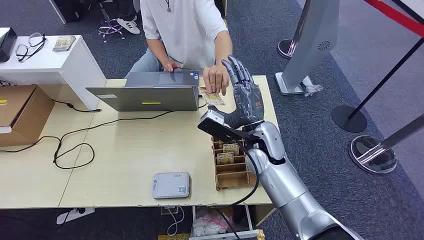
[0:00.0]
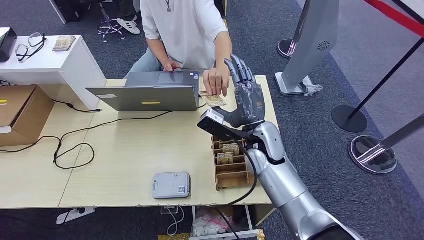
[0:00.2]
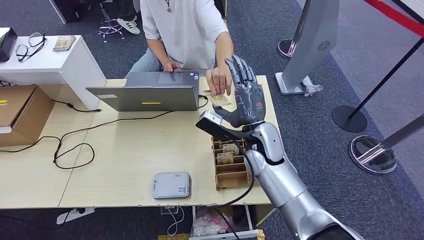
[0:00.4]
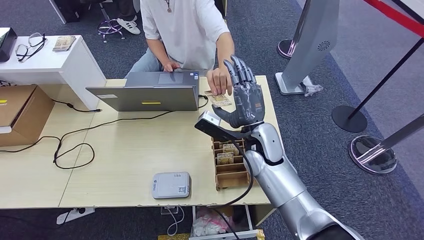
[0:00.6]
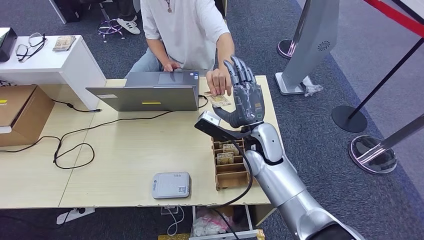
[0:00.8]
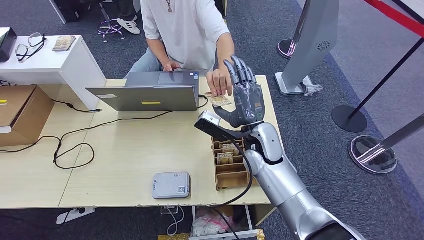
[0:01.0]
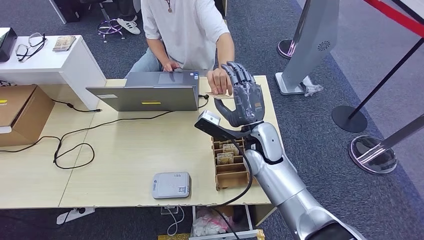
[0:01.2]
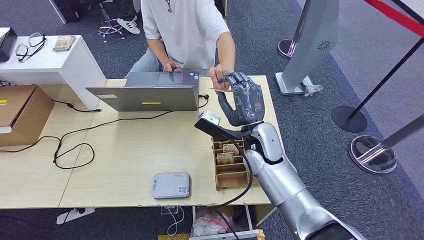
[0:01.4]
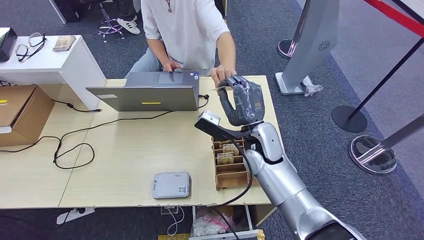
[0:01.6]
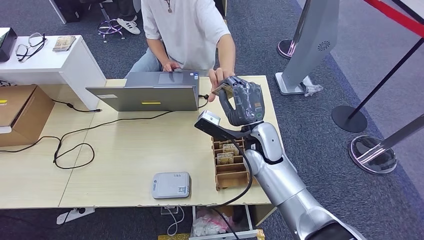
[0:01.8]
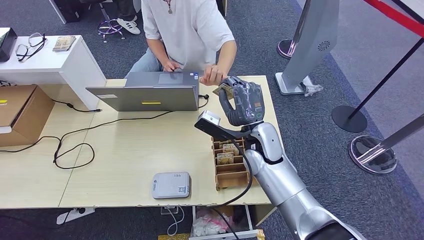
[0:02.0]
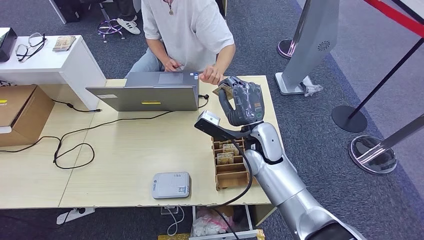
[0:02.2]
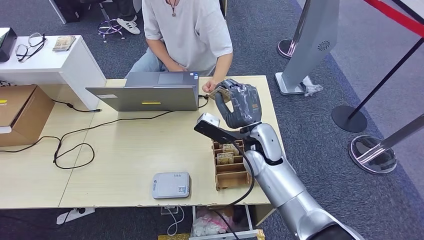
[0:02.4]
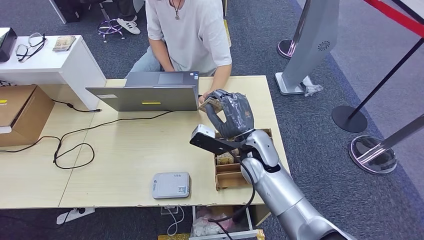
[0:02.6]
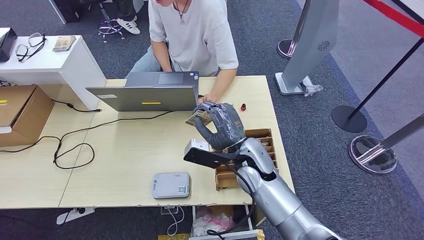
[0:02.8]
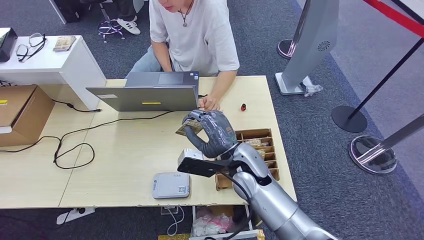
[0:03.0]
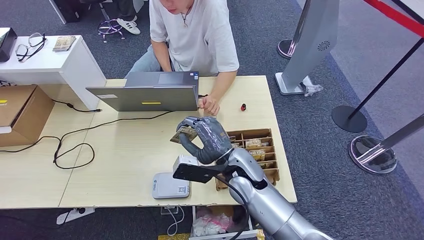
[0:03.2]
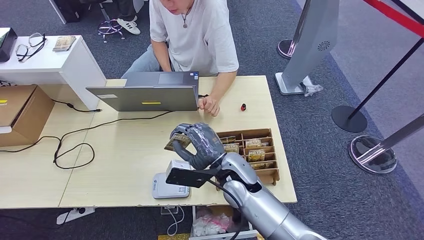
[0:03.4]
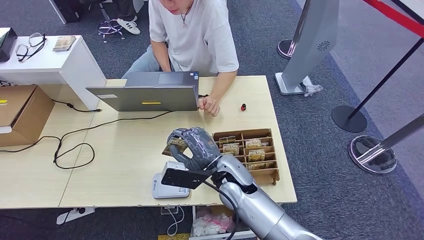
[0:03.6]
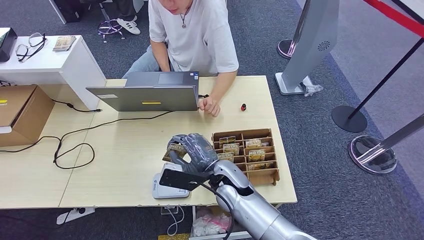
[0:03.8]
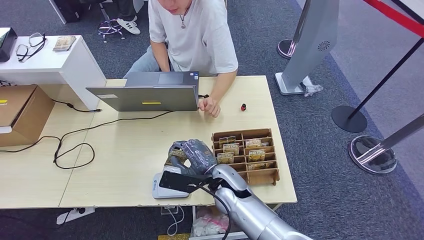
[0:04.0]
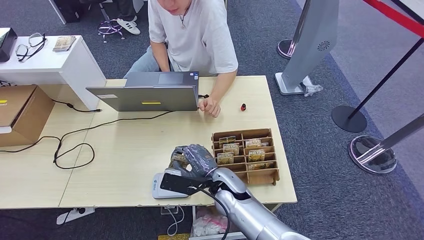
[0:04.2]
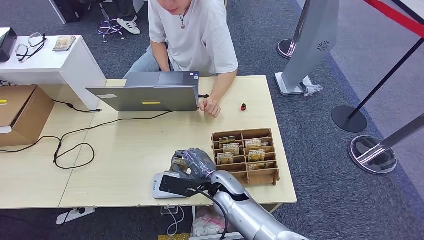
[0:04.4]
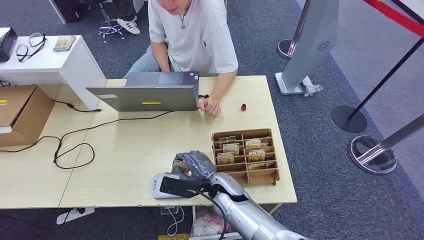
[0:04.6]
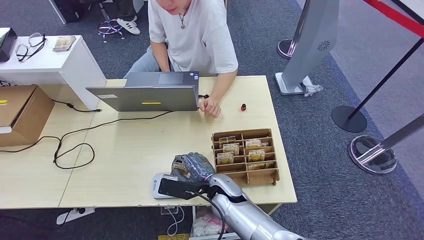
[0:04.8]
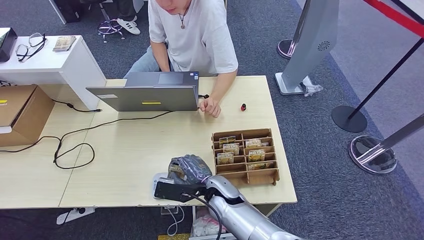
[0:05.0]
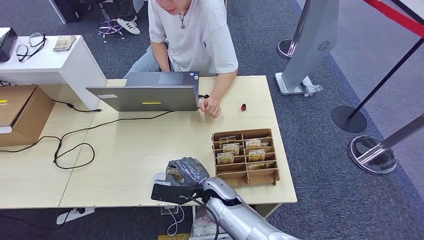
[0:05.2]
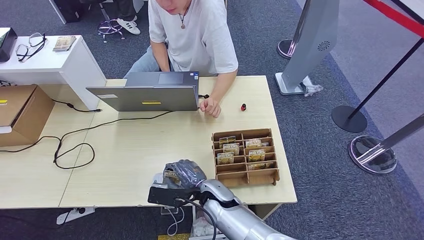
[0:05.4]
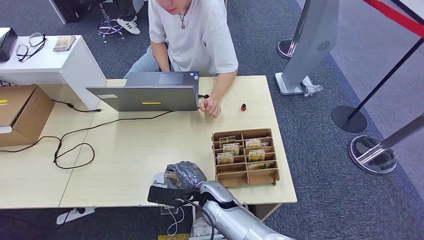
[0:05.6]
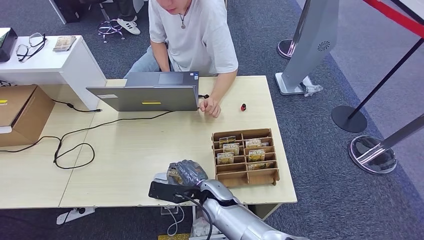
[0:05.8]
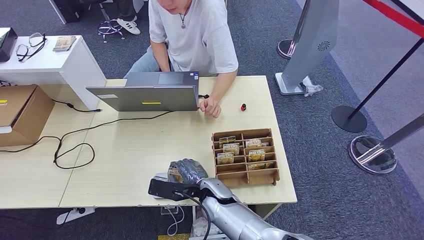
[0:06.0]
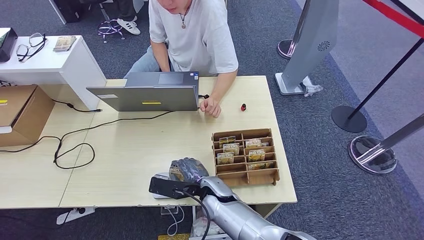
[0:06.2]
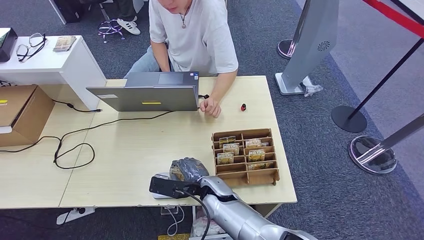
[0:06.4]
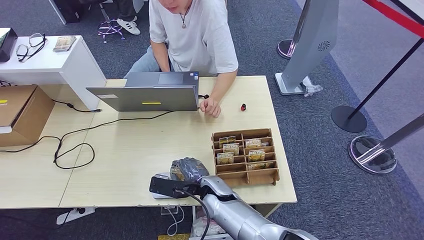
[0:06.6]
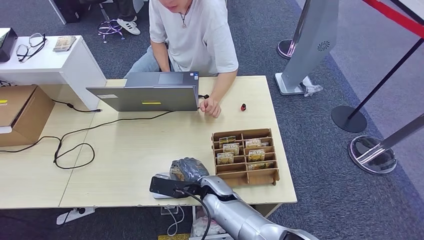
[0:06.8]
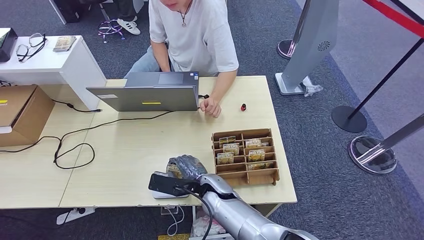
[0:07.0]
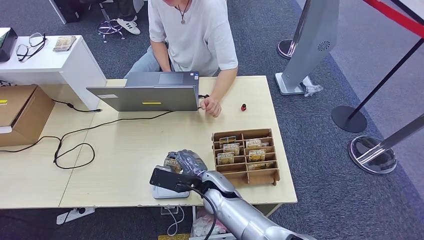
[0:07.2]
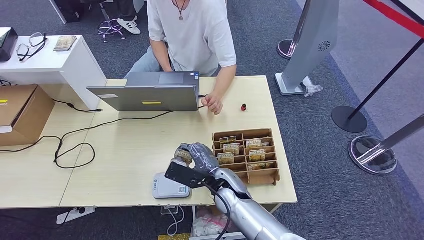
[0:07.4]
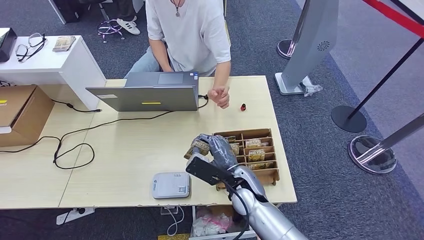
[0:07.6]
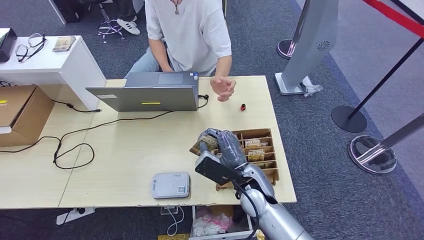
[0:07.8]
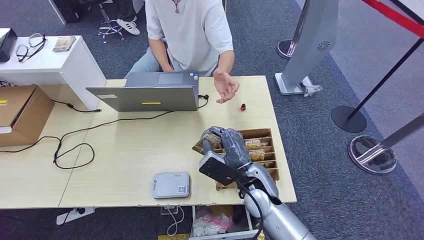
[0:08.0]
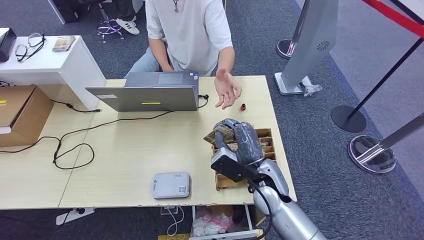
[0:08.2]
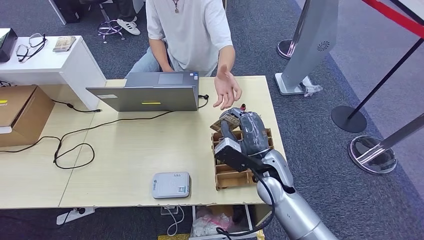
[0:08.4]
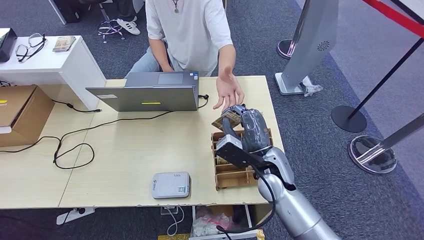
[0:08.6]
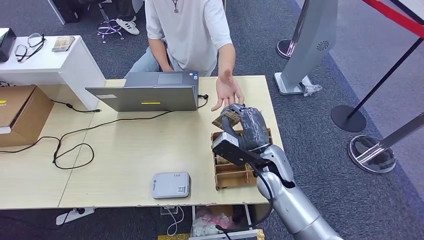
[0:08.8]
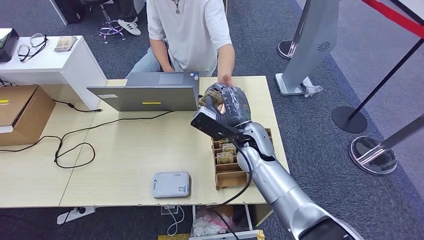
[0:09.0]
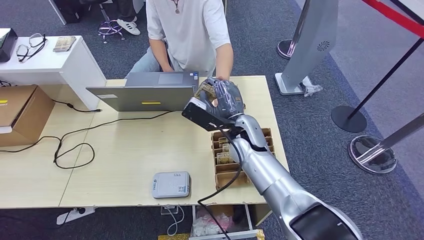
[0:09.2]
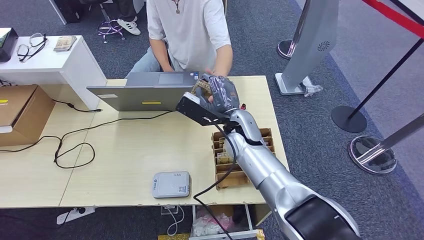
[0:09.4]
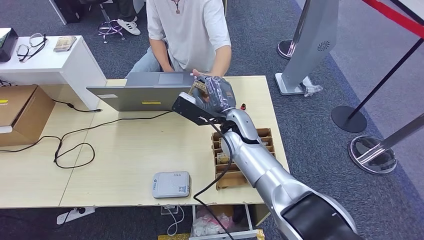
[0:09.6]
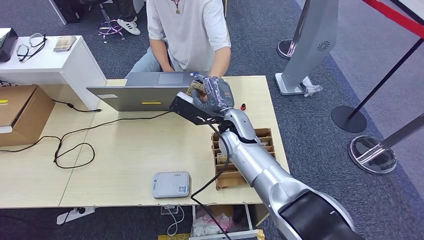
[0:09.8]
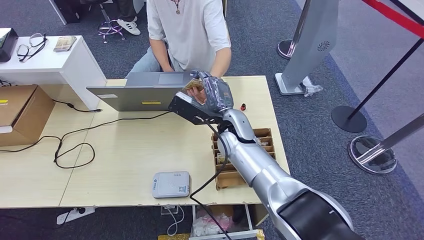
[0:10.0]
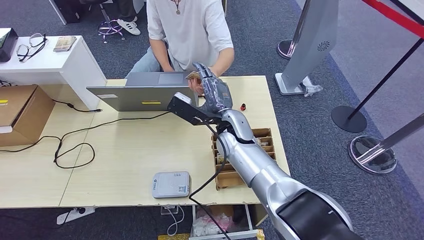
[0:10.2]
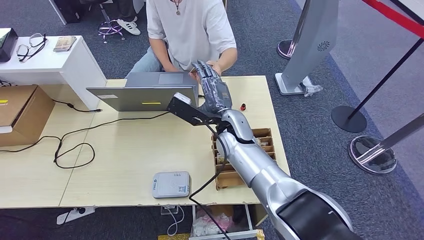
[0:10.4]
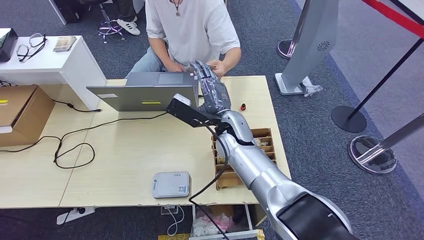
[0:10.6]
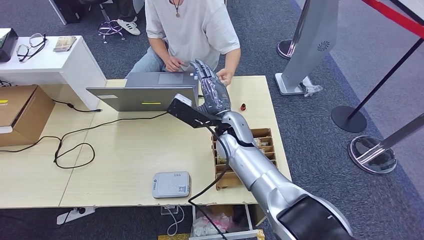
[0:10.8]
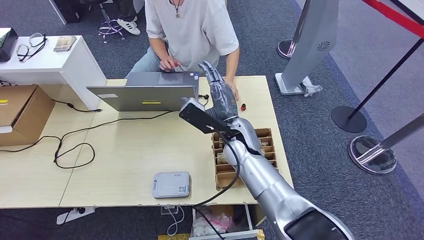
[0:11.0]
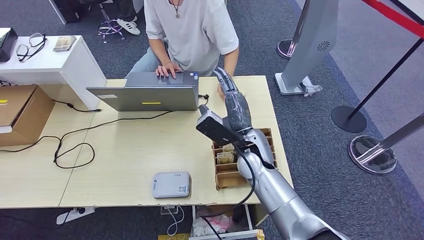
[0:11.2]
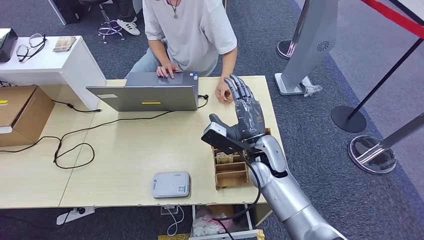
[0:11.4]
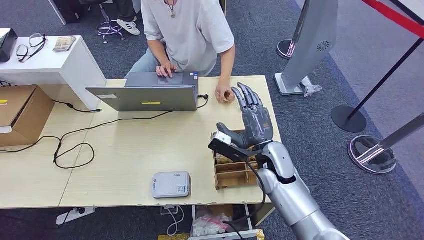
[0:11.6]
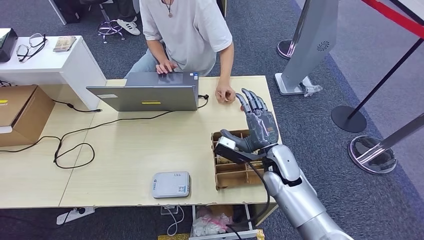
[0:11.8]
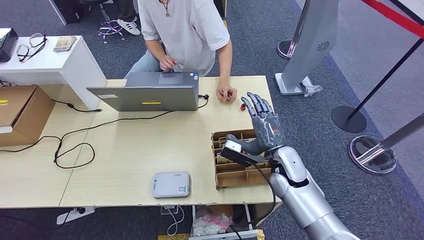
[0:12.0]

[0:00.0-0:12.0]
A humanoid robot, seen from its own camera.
Step, 0:00.0 to 0:02.0: Take the ID card from the person's hand.
Step, 0:02.2 to 0:05.6: Place the ID card on the card reader.
Step, 0:05.8 to 0:10.8: Hand the ID card to the person.
0:01.6 to 0:03.0: The right hand moves approximately 5 cm.
0:03.0 to 0:04.4: The right hand is displaced downward by about 10 cm.
0:04.4 to 0:06.0: There are only small adjustments of the hands.
0:06.0 to 0:07.6: The right hand heads to the right, covering roughly 5 cm.
0:07.6 to 0:09.0: The right hand moves forward and upward, roughly 10 cm.
0:09.0 to 0:10.4: The right hand changes place by some 5 cm.
0:10.4 to 0:12.0: The right hand heads to the right, backward and downward, covering some 15 cm.

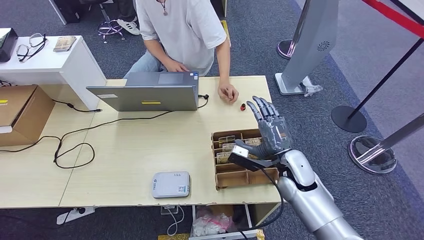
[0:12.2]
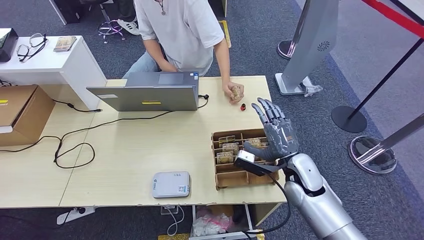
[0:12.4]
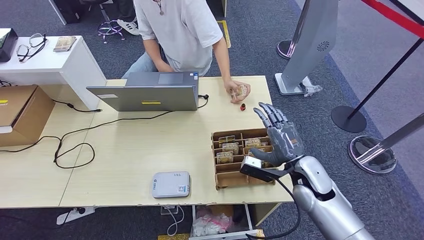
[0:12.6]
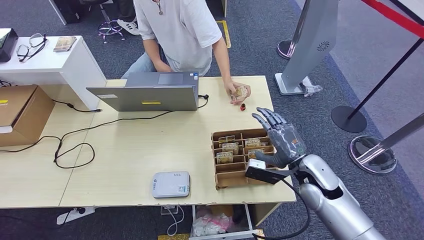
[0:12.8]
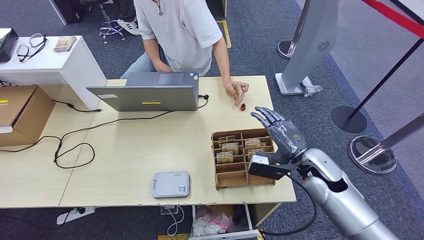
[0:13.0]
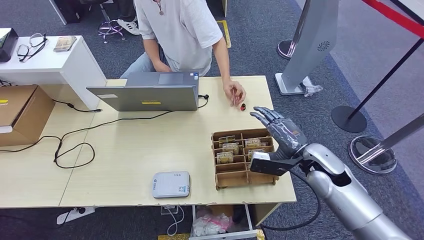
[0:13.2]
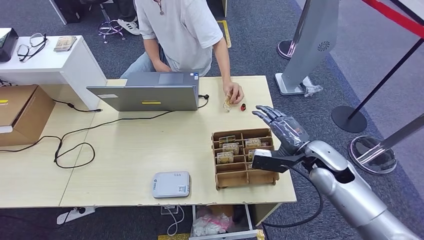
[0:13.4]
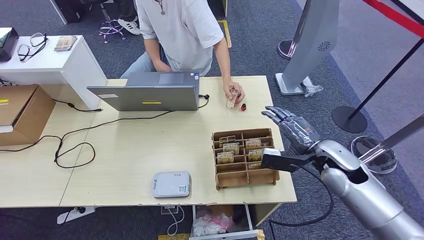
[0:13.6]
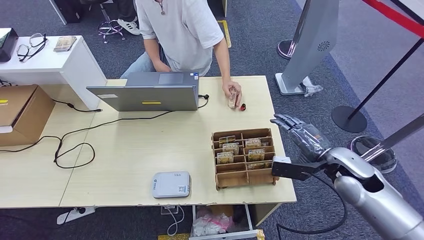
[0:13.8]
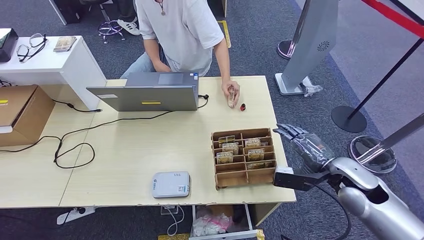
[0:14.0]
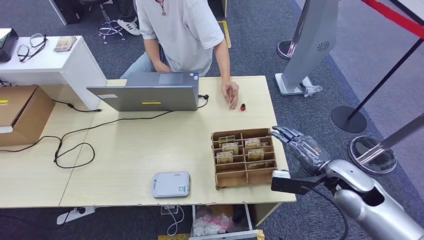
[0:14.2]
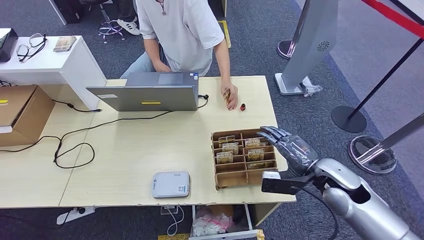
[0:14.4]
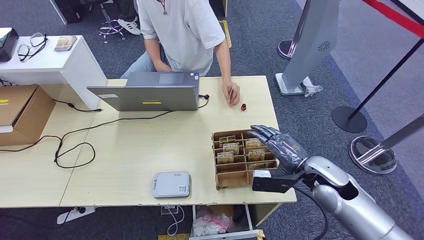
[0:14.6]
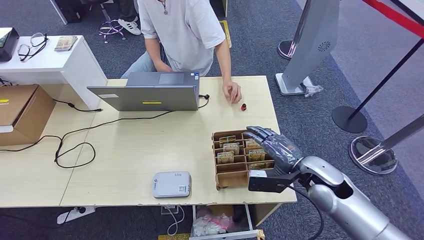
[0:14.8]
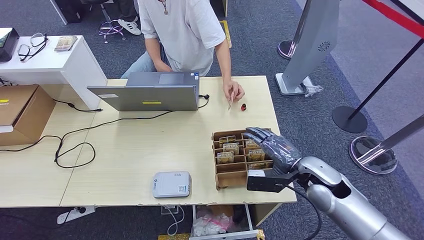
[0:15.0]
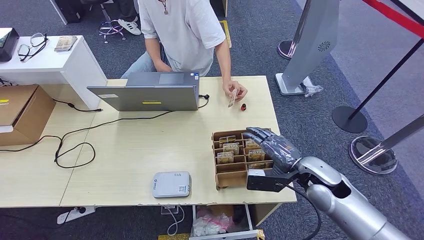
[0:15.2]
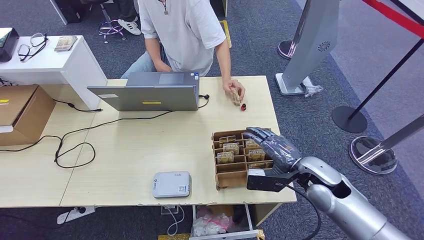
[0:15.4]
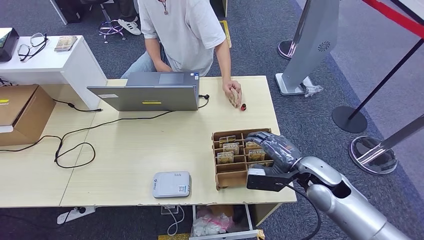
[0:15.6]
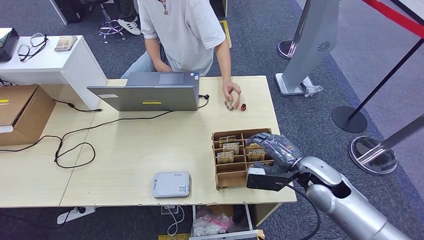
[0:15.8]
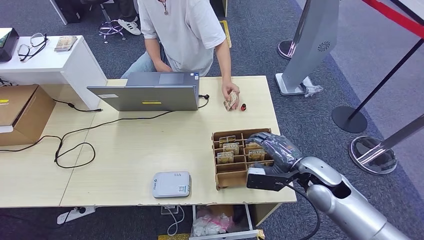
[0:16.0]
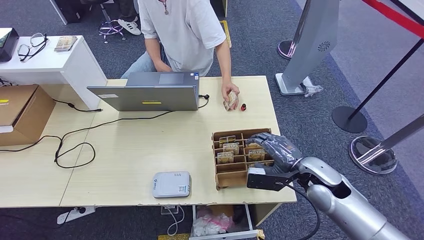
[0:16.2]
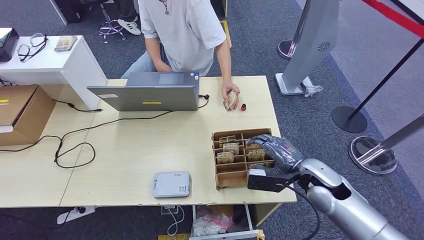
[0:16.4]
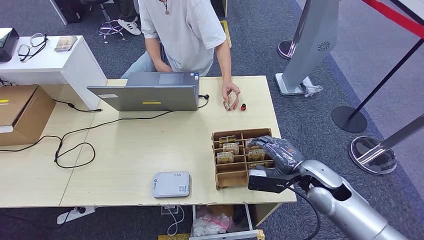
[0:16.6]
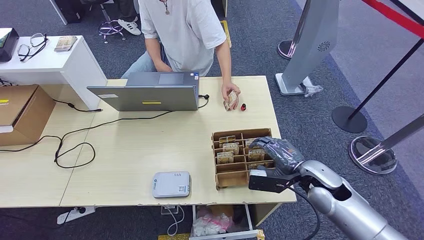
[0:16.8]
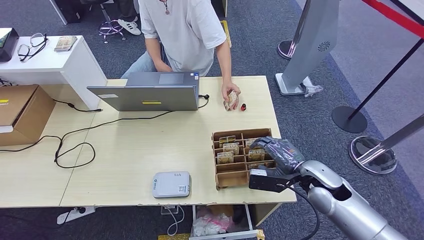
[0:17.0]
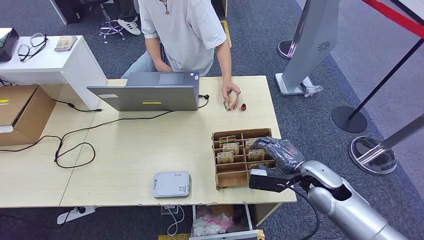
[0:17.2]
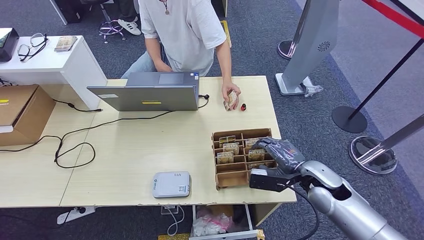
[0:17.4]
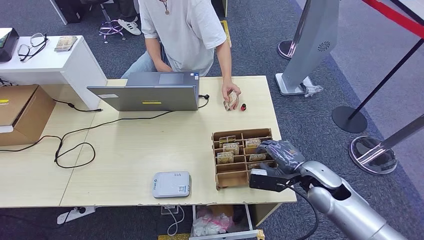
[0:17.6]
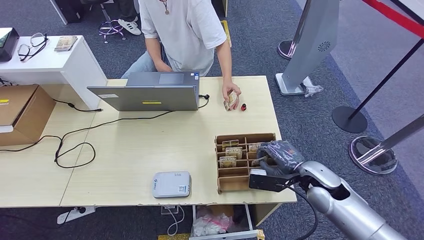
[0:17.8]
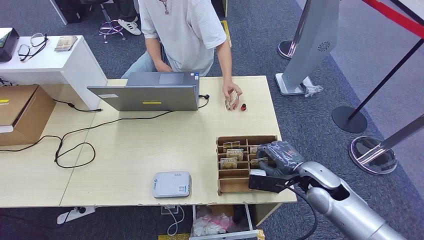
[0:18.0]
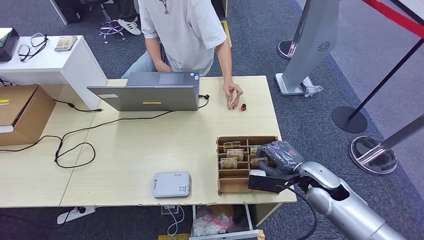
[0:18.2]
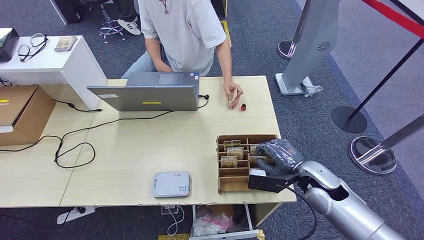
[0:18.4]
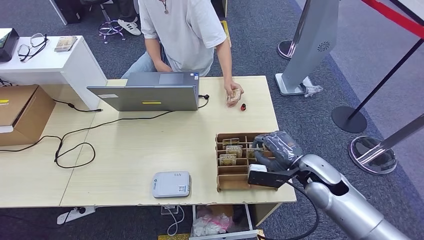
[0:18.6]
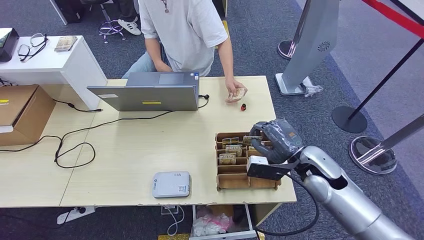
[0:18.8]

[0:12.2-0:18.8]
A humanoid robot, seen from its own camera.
0:12.2 to 0:13.8: The right hand is displaced to the right and upward by some 15 cm.
0:13.8 to 0:15.4: The right hand travels to the left by some 5 cm.
0:15.4 to 0:18.8: The hands move only a little.
